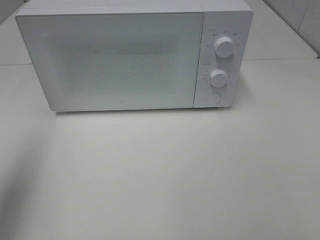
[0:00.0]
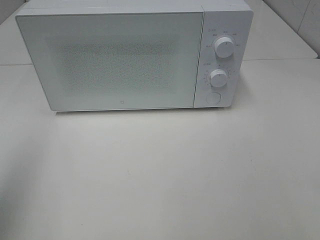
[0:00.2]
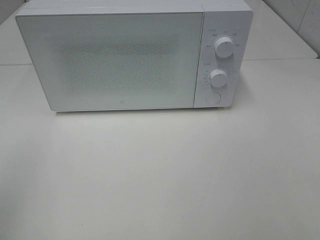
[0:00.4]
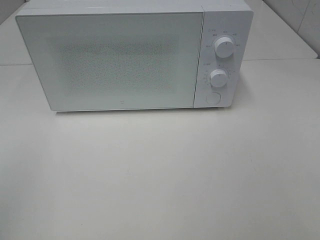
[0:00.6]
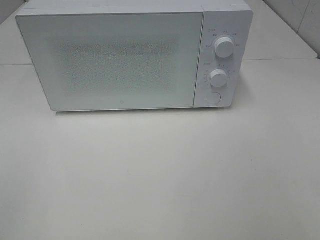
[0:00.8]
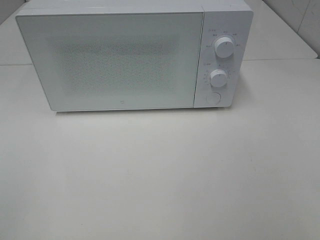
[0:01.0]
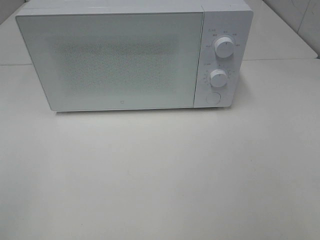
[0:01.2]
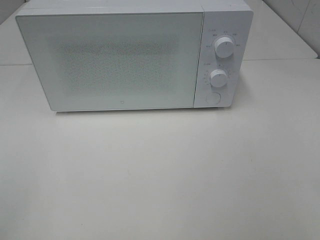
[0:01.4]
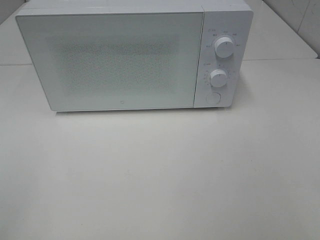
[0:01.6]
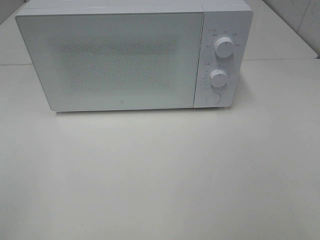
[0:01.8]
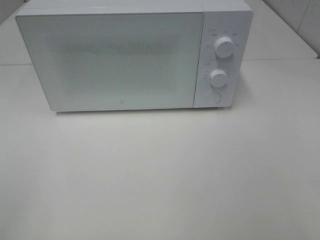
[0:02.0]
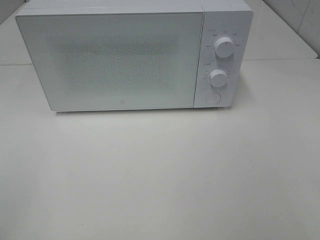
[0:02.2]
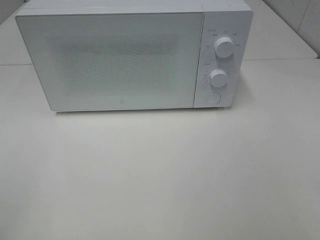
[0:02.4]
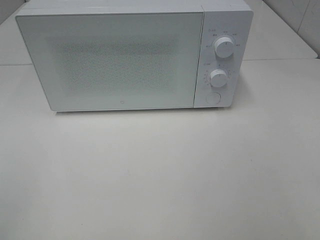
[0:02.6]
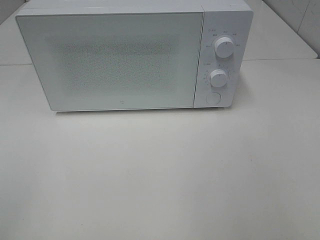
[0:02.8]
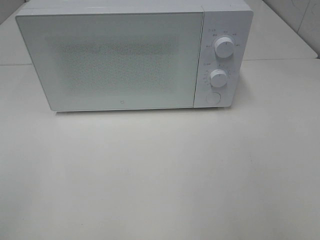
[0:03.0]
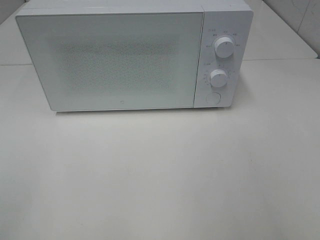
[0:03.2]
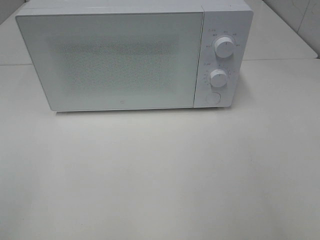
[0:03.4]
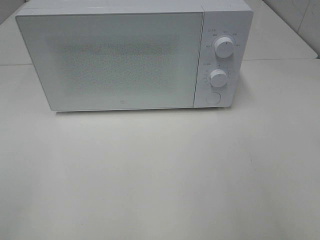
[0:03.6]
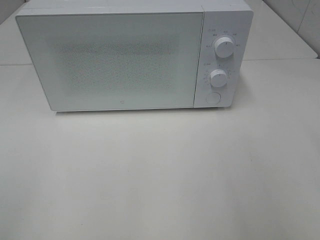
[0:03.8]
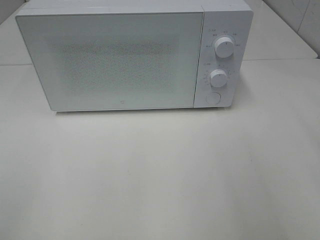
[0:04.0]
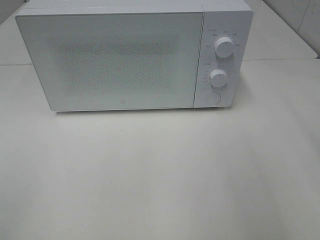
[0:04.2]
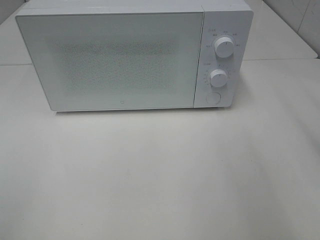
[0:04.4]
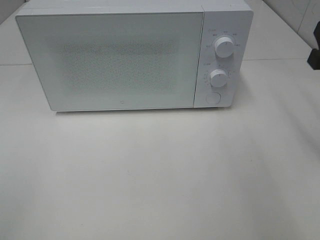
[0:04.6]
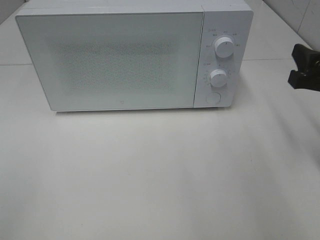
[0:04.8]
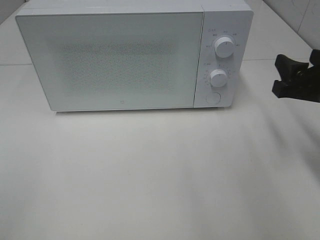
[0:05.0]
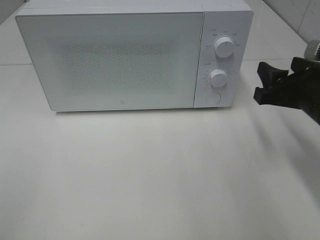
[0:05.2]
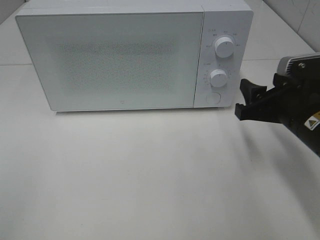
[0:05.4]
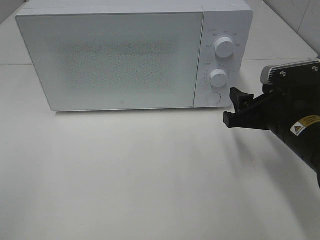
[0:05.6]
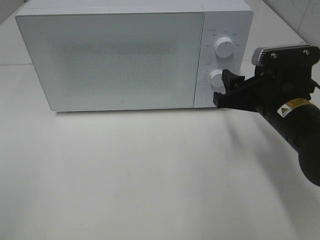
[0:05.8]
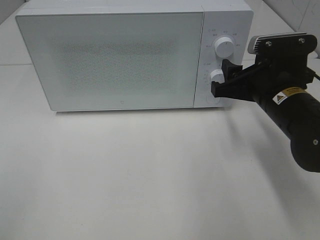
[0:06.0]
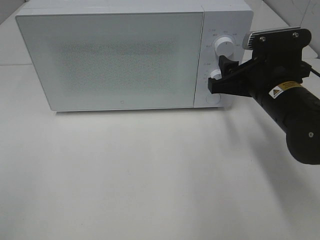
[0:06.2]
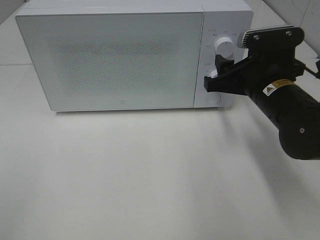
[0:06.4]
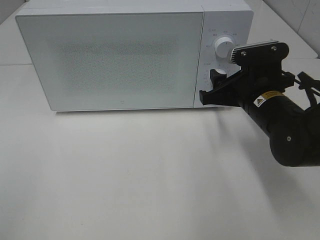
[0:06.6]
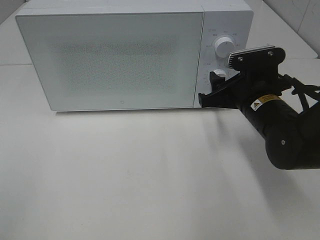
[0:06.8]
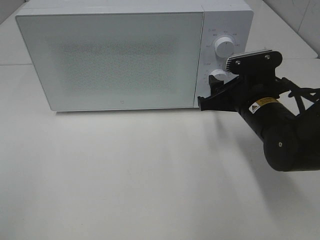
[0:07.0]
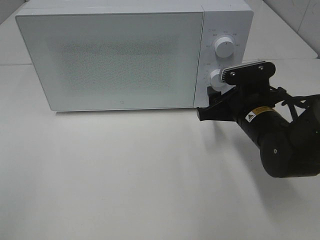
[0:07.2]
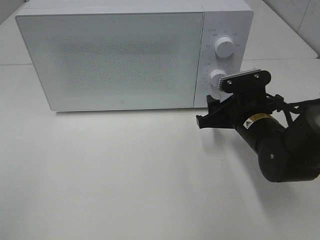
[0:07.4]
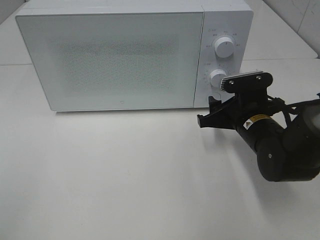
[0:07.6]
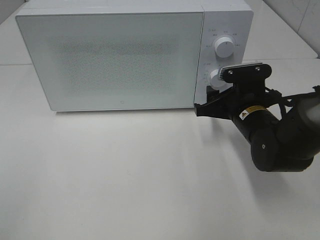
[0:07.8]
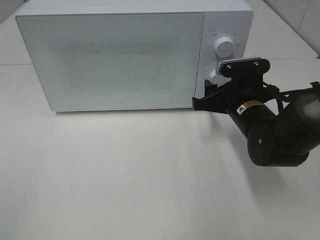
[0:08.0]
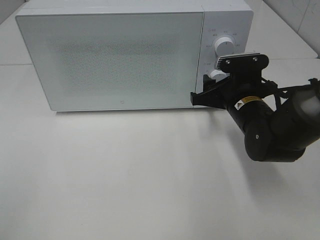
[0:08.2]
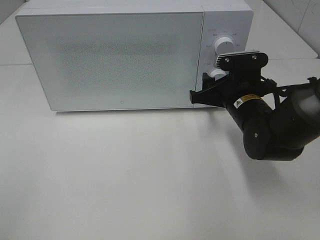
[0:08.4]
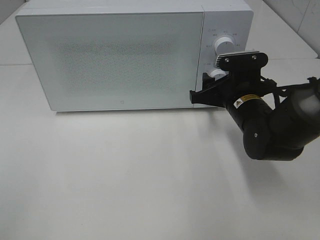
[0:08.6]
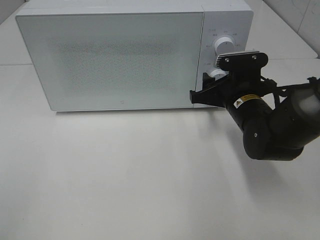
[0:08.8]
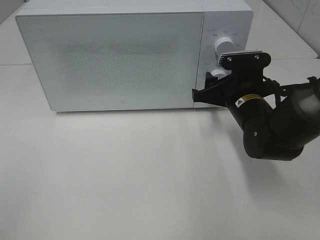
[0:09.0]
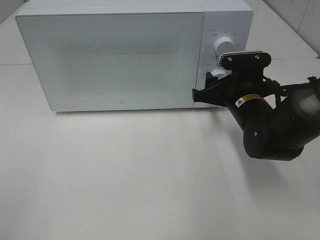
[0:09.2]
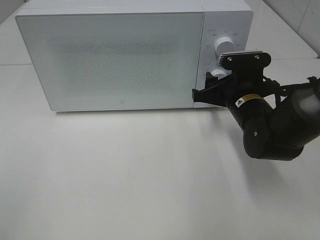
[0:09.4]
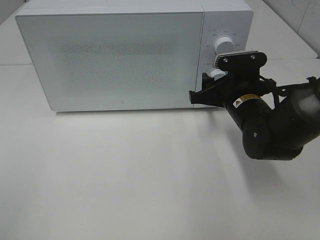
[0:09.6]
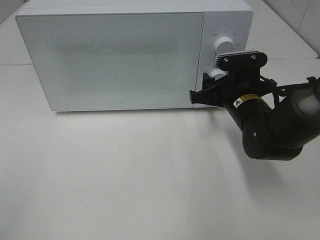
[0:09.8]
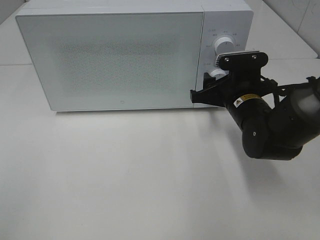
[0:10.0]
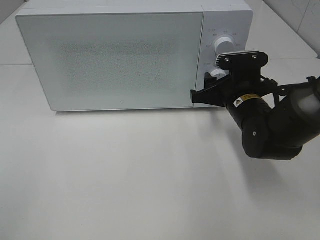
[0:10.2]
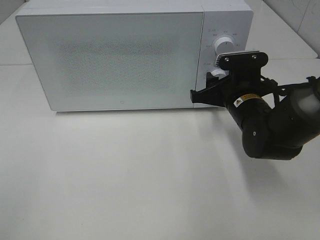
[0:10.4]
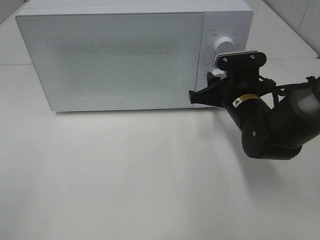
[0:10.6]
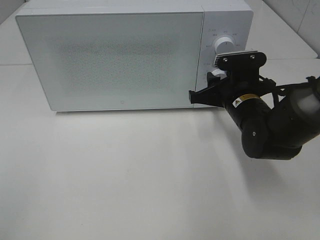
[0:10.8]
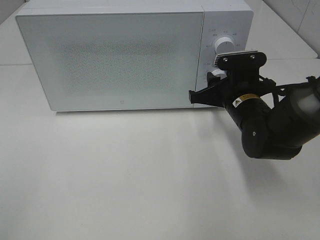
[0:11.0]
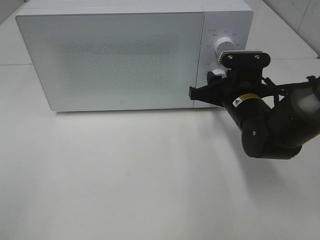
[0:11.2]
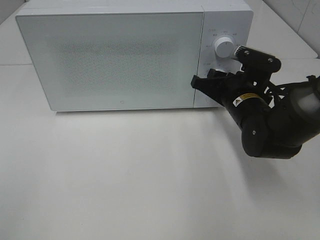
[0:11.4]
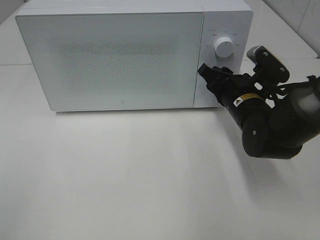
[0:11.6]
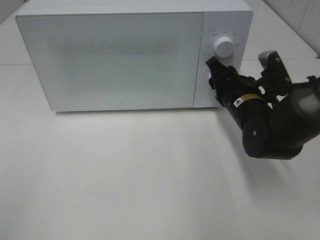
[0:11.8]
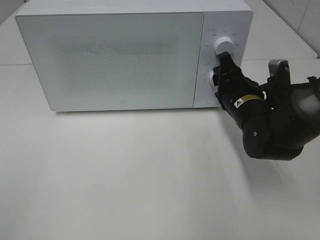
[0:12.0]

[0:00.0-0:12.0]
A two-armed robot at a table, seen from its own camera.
Task of the whole recording: Heat the burger.
0:00.0 to 0:01.6: The left gripper moves backward, roughly 20 cm.
0:04.4 to 0:06.0: The right gripper is displaced to the left, downward and forward by some 15 cm.
0:06.0 to 0:07.6: The right gripper travels downward by some 10 cm.
0:07.6 to 0:09.0: There are only small adjustments of the grippers.
0:09.0 to 0:10.4: Both grippers stay about where they are.

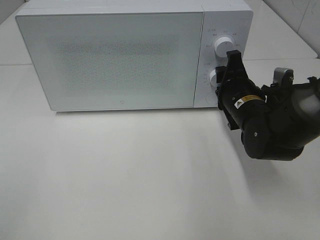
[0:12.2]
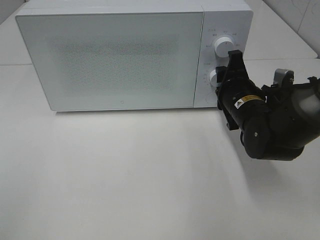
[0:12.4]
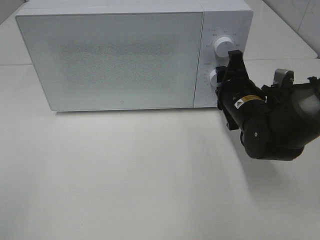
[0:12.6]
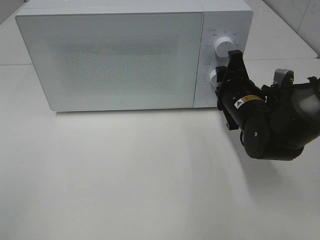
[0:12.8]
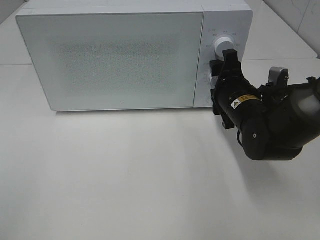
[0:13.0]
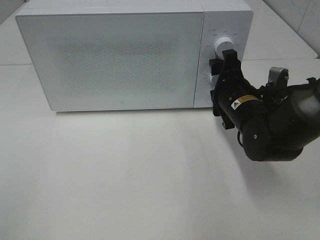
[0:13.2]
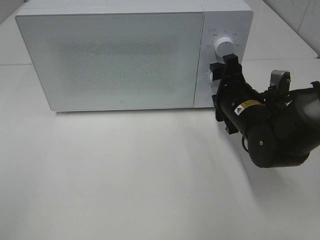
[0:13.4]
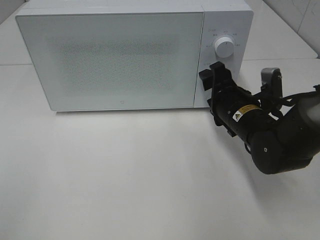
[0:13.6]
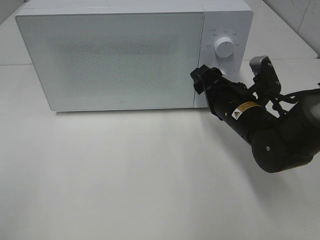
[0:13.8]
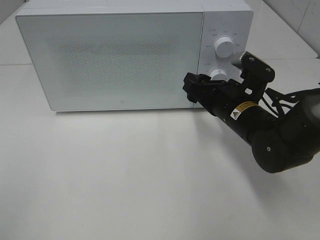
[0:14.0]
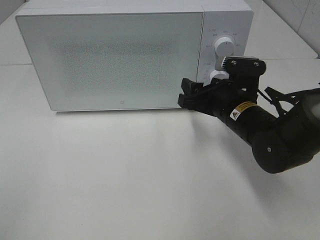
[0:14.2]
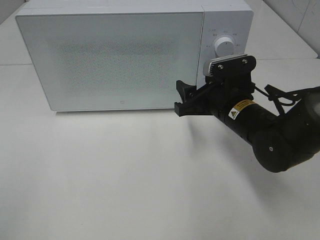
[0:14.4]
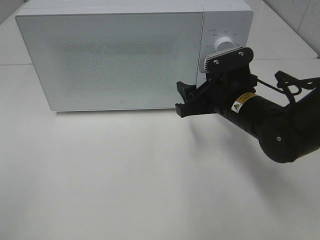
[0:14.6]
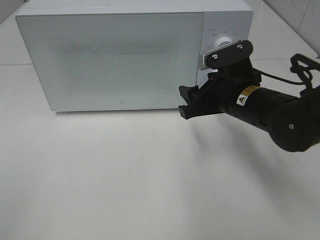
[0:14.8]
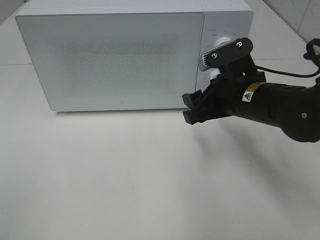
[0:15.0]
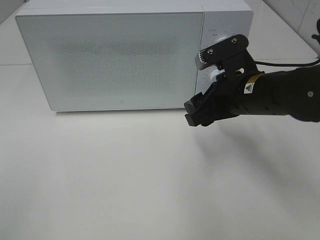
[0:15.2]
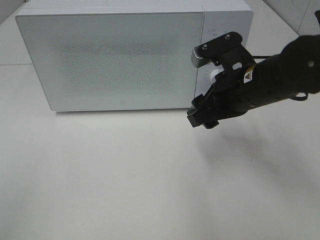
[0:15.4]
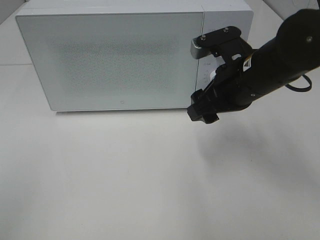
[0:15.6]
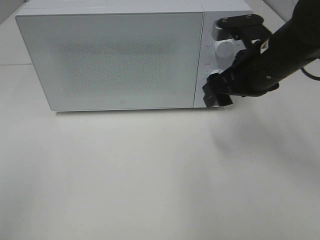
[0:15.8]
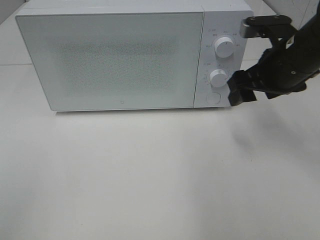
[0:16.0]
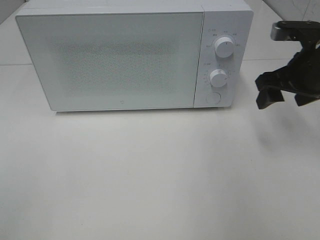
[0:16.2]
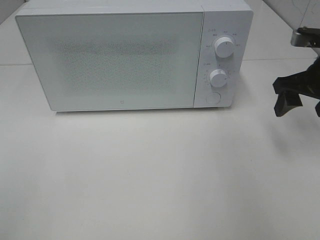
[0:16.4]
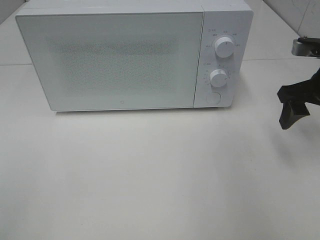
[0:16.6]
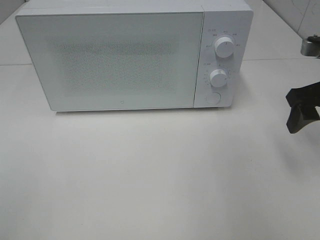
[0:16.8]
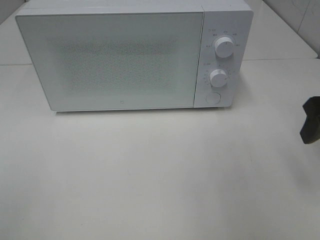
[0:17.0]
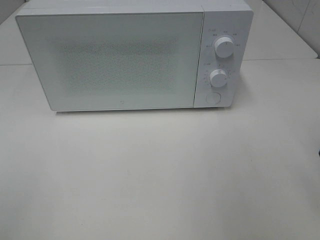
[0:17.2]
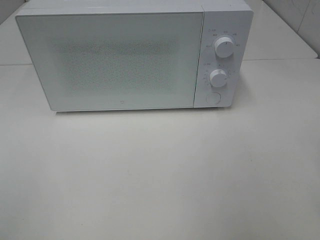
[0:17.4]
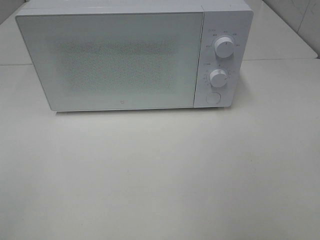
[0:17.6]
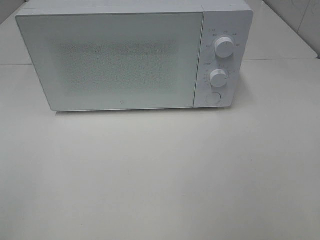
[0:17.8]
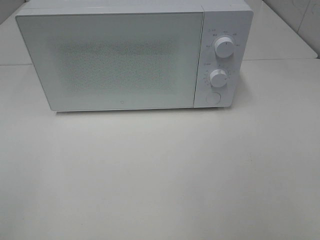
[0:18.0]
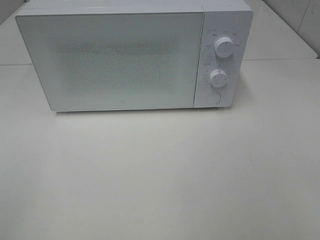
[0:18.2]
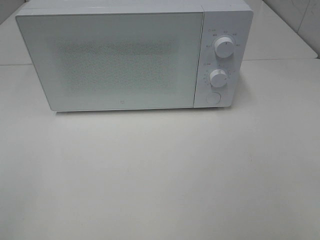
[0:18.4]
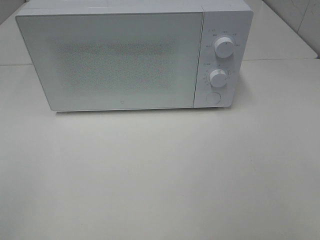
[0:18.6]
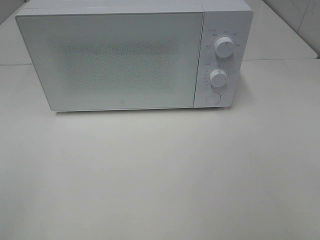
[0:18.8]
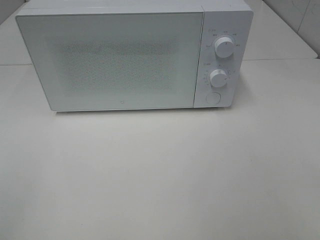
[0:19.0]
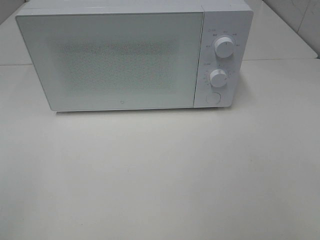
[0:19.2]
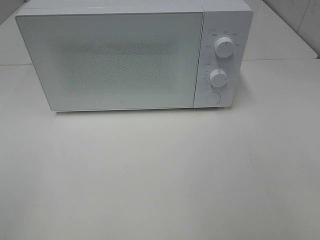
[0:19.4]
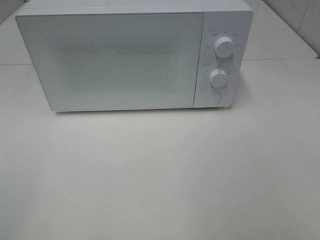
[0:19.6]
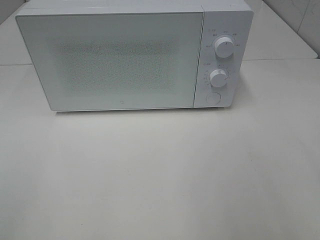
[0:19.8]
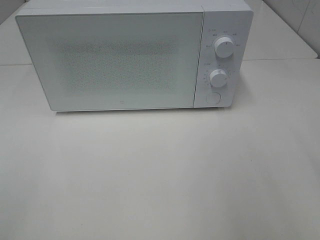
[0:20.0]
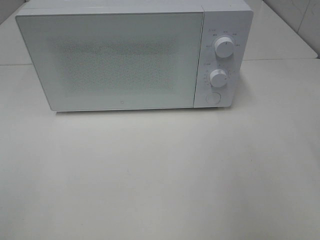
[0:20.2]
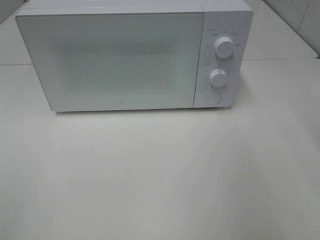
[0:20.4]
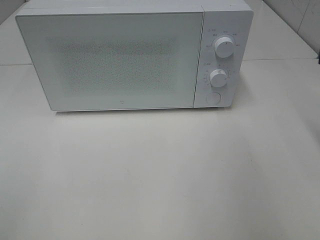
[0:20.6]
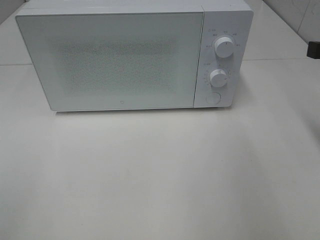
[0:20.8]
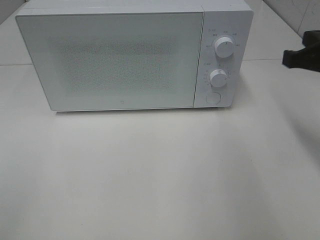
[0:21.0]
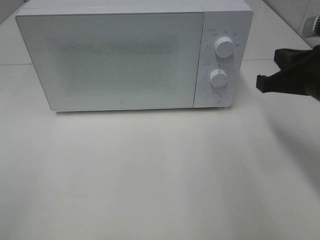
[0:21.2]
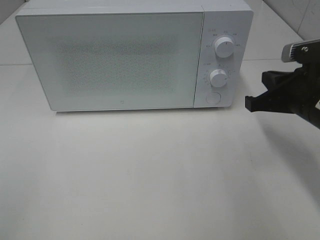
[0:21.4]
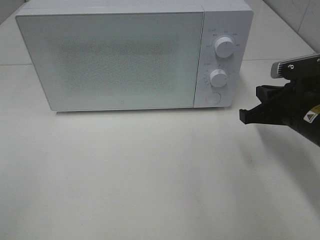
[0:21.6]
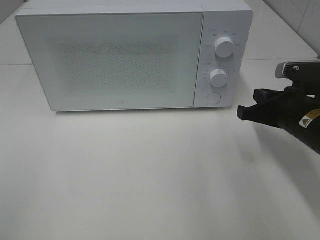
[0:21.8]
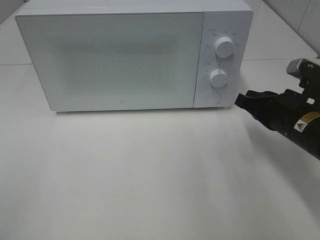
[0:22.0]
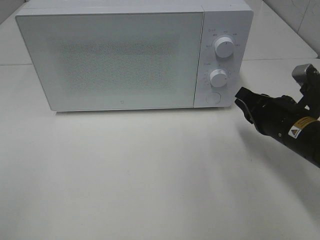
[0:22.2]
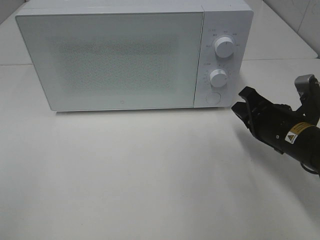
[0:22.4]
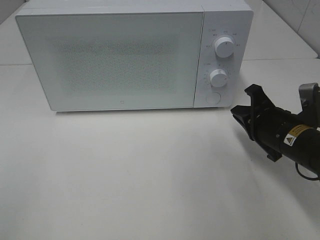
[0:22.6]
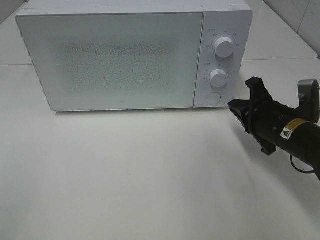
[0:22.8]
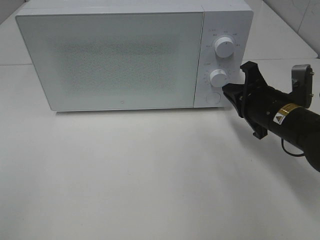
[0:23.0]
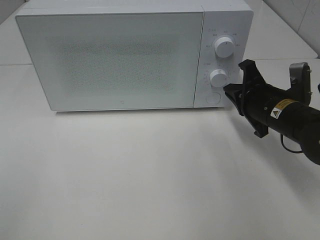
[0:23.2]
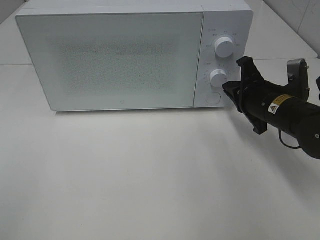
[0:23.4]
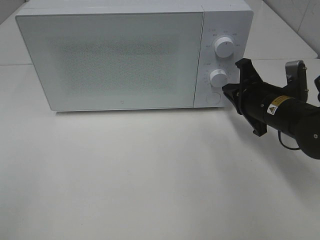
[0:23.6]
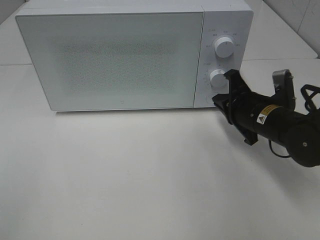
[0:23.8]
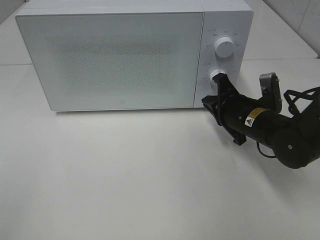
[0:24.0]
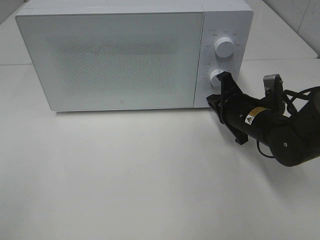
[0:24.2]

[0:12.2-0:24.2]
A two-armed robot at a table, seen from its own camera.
Task of the whole recording: Heat the burger.
0:13.8 to 0:15.2: The right gripper heads upward, covering about 5 cm.
0:15.2 to 0:16.6: The right gripper moves to the right, approximately 15 cm.
0:16.6 to 0:18.2: The right gripper travels backward by approximately 25 cm.
0:19.8 to 0:21.2: The right gripper shifts about 20 cm forward and downward, and closes its fingers.
0:21.2 to 0:22.6: The right gripper travels downward by approximately 10 cm.
0:22.6 to 0:24.2: The right gripper shifts approximately 5 cm forward.
